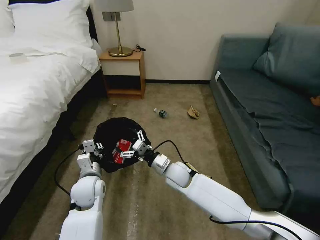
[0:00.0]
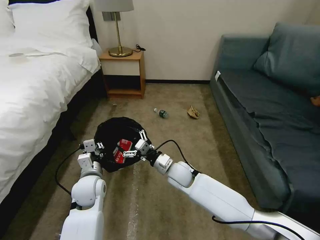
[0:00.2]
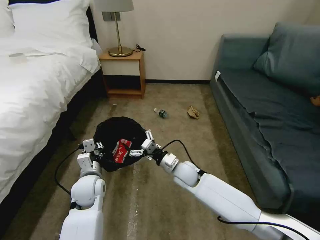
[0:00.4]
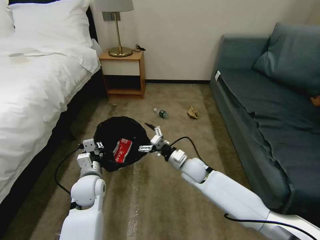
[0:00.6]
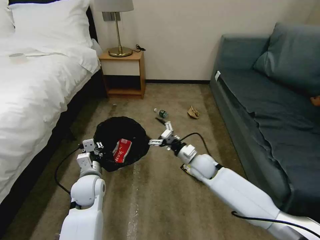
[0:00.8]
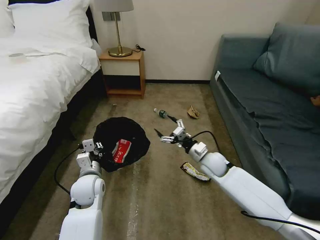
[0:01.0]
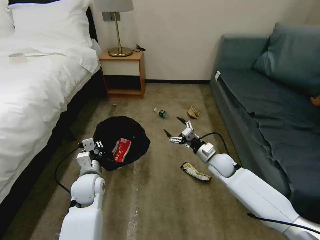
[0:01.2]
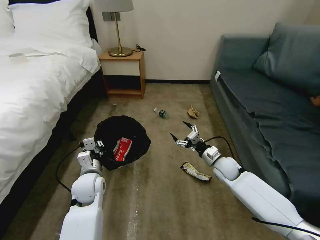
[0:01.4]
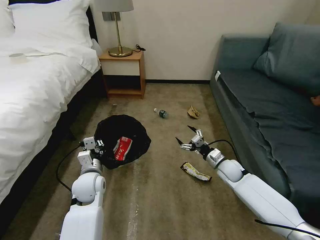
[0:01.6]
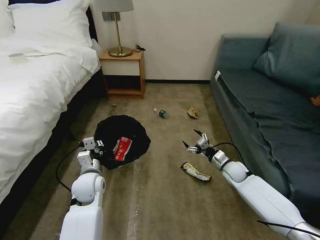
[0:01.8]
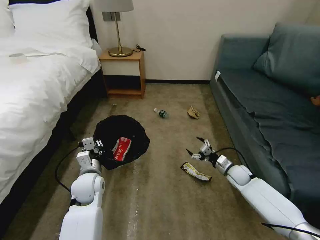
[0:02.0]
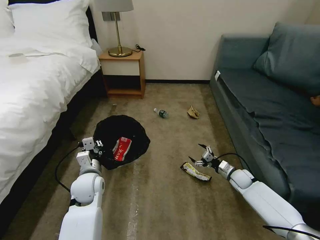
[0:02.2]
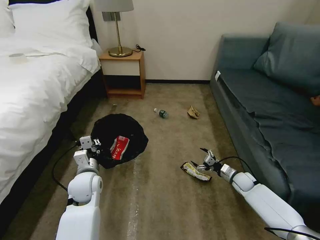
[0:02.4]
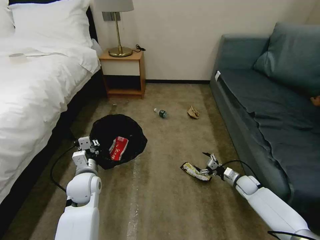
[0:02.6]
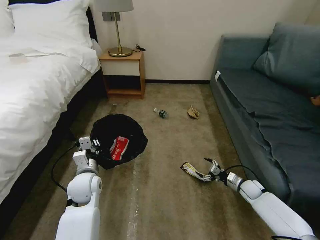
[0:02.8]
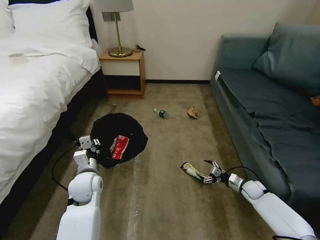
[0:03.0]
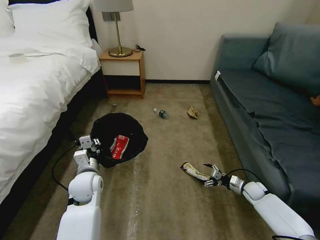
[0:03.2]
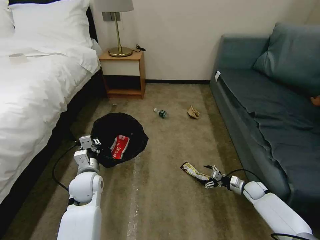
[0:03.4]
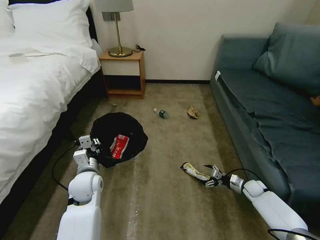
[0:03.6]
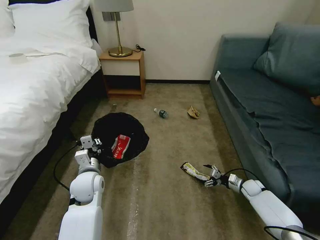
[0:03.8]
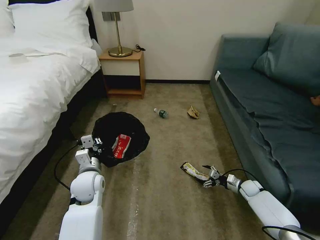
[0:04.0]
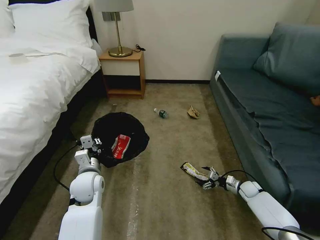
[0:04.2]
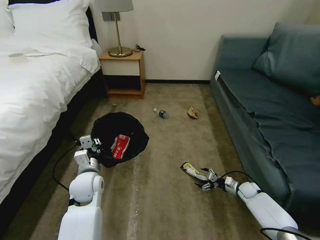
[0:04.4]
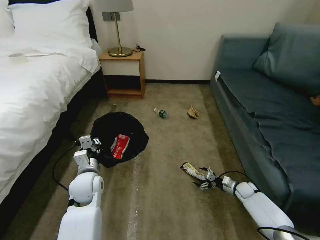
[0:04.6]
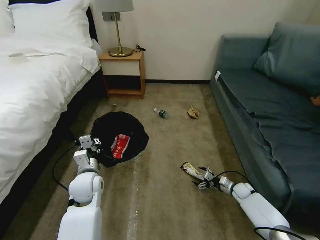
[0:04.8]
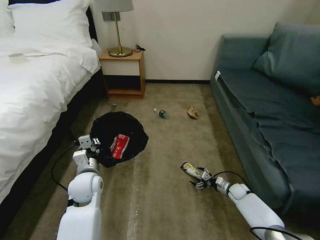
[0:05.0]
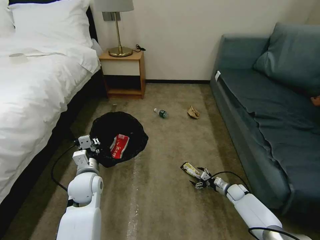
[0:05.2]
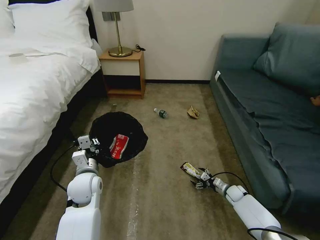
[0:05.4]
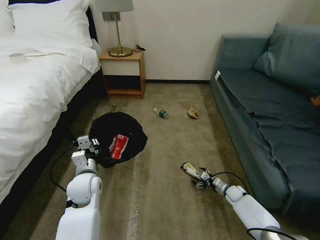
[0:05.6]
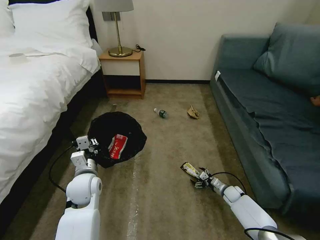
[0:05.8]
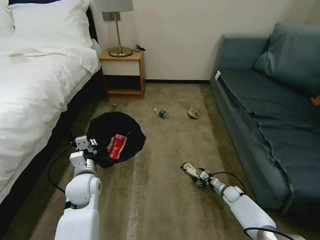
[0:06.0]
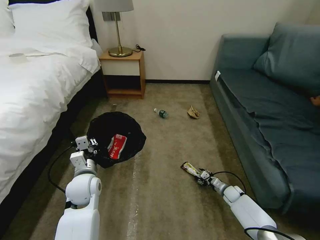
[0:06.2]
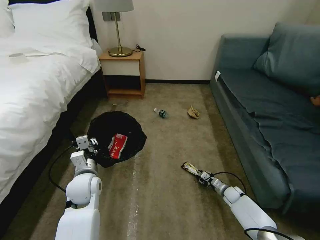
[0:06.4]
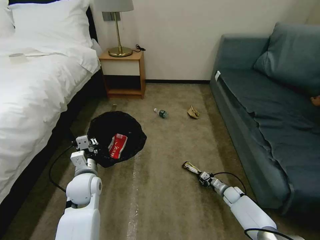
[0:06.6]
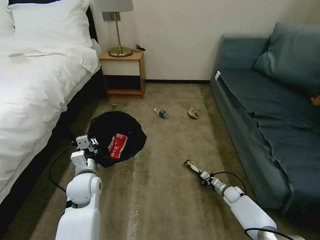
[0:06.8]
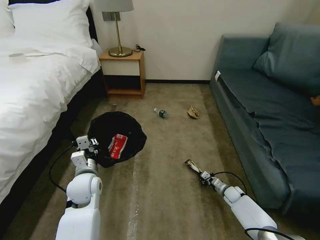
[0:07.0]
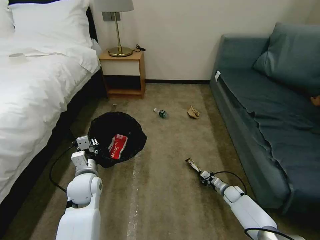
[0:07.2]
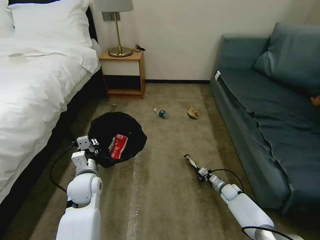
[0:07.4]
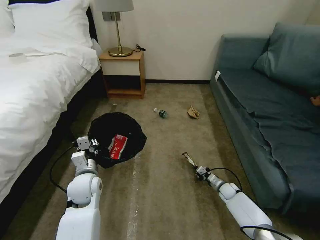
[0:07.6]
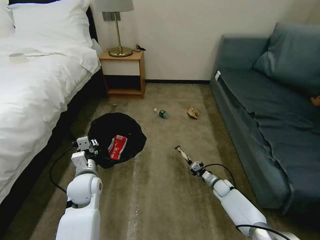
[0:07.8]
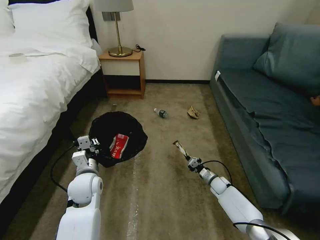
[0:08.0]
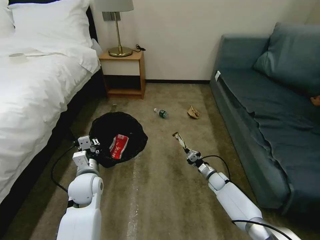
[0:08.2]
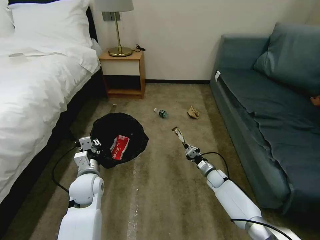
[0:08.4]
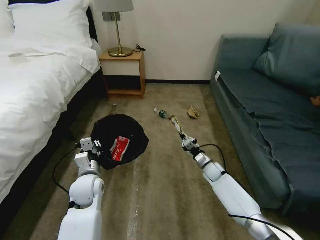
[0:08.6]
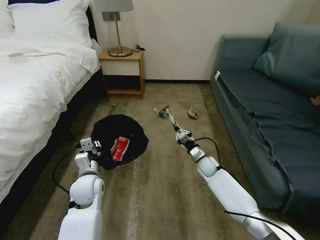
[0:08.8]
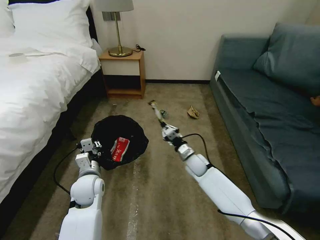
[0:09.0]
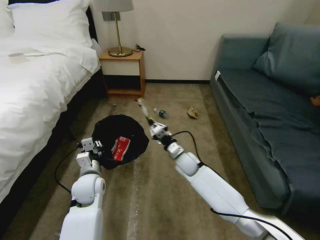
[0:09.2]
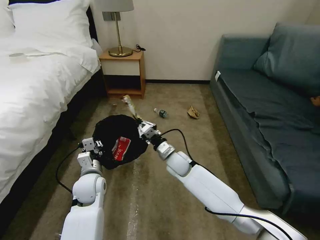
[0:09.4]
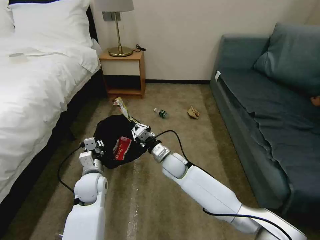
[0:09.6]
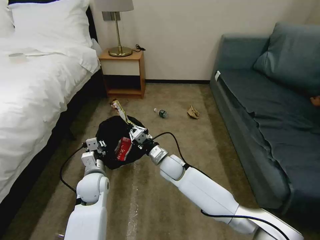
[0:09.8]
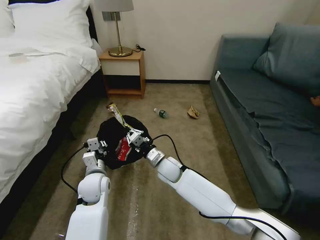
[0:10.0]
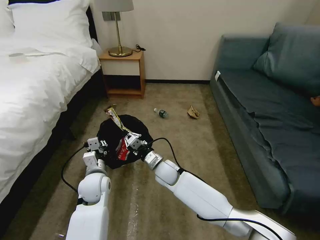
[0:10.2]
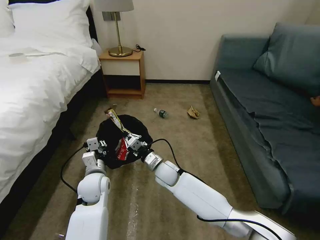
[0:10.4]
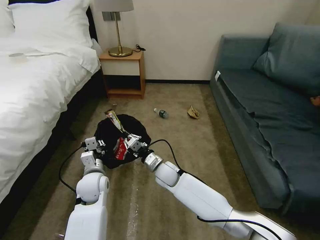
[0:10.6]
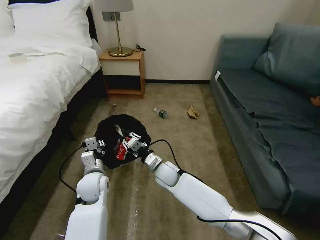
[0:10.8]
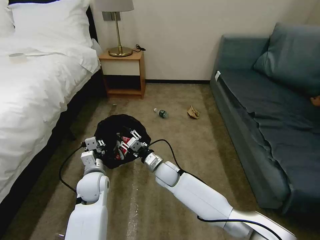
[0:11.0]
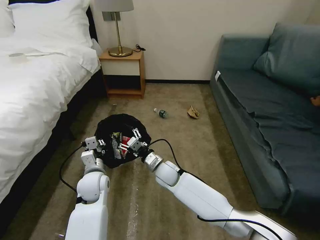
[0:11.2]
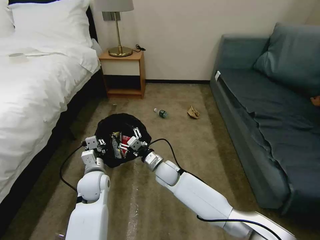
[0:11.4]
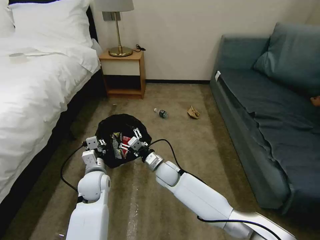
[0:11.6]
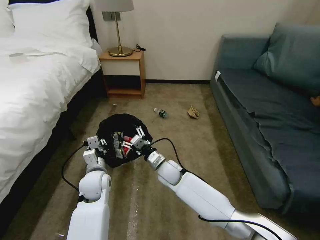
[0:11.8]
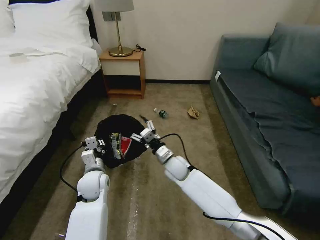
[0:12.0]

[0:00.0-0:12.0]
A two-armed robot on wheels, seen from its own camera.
Task of the whole recording: Pick up the trash bin, then pick up the garbage on the floor and place it into the trash bin.
0:00.0 to 0:01.6: The right gripper moves to the right, some 25 cm.
0:01.6 to 0:03.0: The right gripper heads to the right and downward, covering about 20 cm.
0:03.0 to 0:04.4: There are only small adjustments of the grippers.
0:04.4 to 0:06.0: The right gripper heads to the left, covering some 5 cm.
0:06.0 to 0:07.6: The right gripper closes.
0:07.6 to 0:09.0: The right gripper is displaced to the left and upward by about 25 cm.
0:09.0 to 0:10.4: The right gripper shifts approximately 15 cm to the left.
0:10.4 to 0:12.0: The right gripper opens.

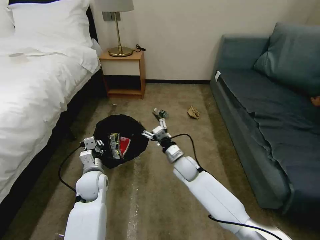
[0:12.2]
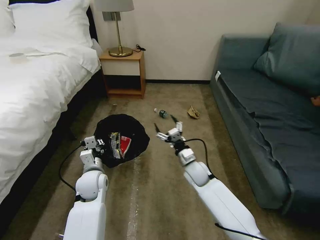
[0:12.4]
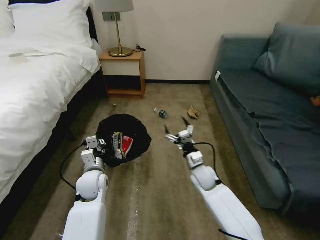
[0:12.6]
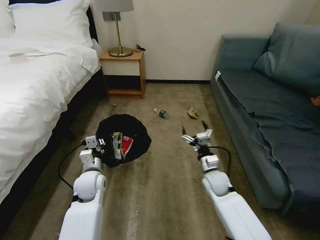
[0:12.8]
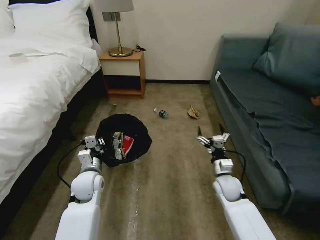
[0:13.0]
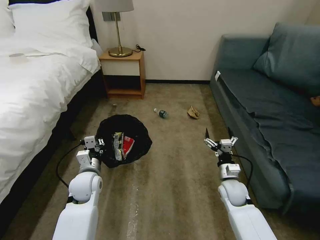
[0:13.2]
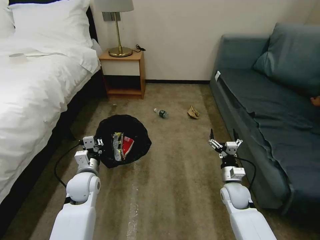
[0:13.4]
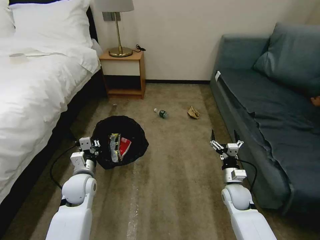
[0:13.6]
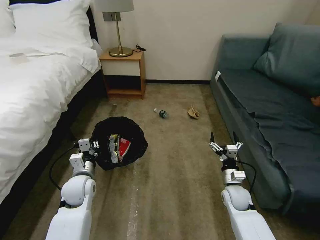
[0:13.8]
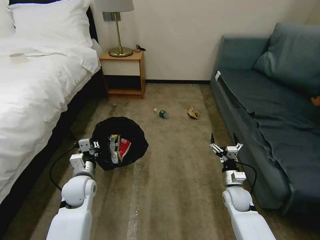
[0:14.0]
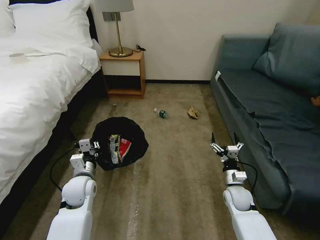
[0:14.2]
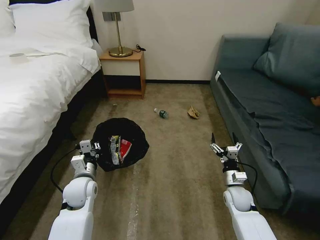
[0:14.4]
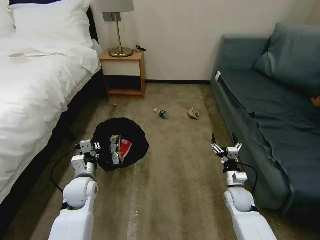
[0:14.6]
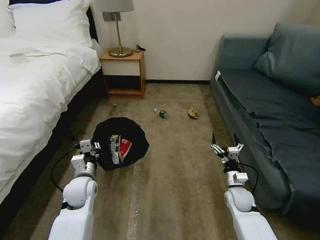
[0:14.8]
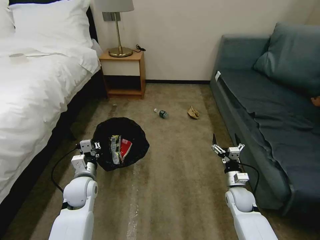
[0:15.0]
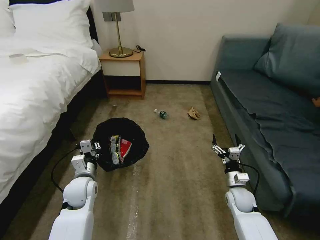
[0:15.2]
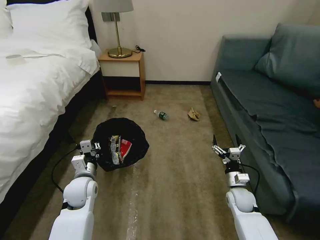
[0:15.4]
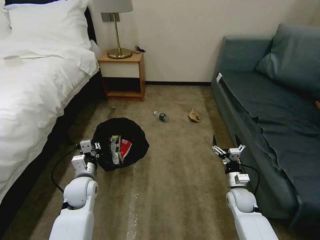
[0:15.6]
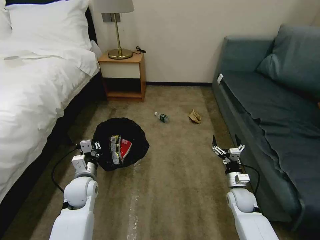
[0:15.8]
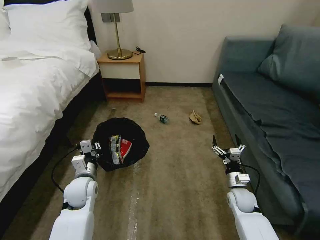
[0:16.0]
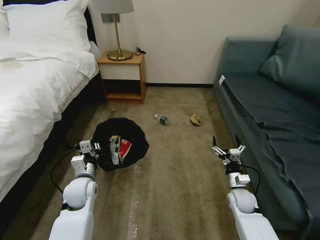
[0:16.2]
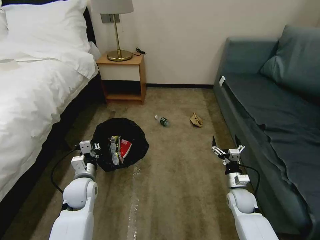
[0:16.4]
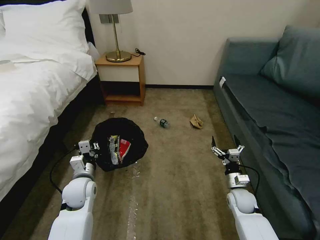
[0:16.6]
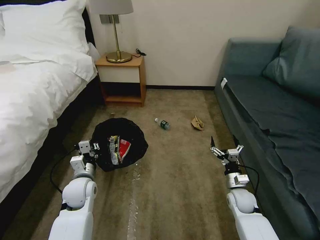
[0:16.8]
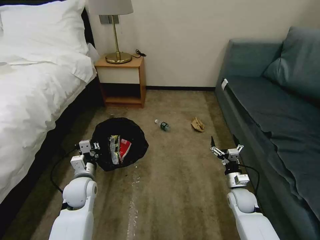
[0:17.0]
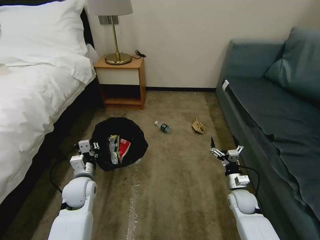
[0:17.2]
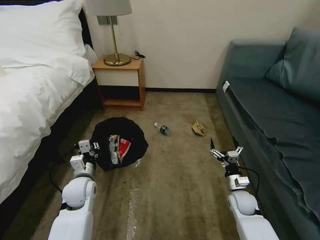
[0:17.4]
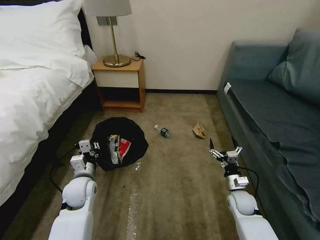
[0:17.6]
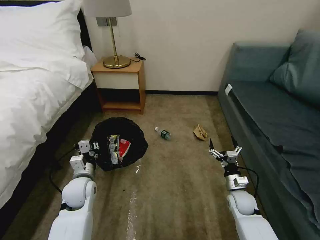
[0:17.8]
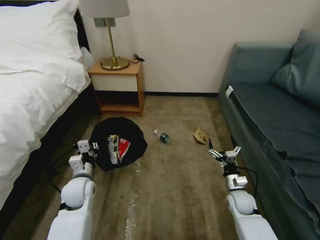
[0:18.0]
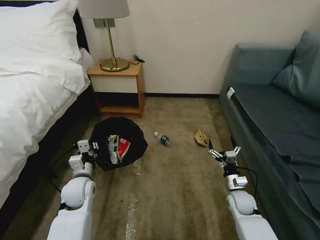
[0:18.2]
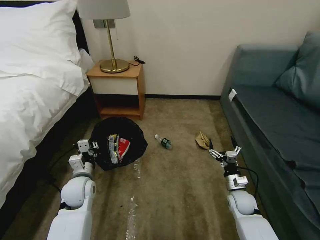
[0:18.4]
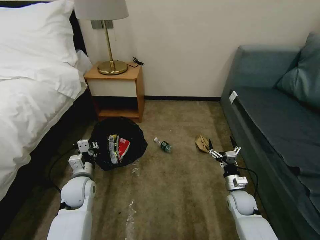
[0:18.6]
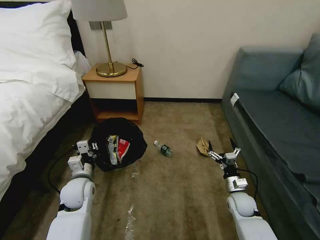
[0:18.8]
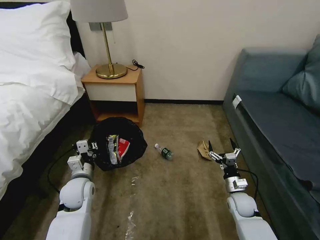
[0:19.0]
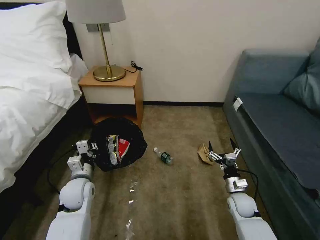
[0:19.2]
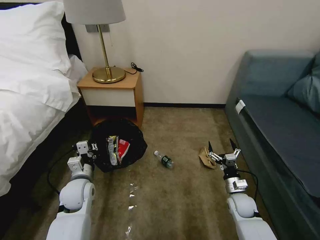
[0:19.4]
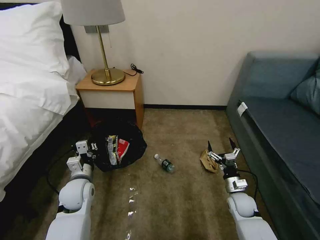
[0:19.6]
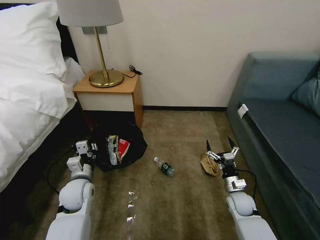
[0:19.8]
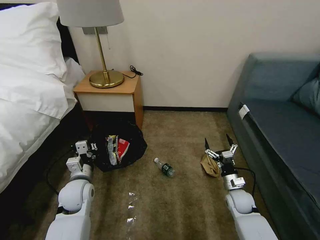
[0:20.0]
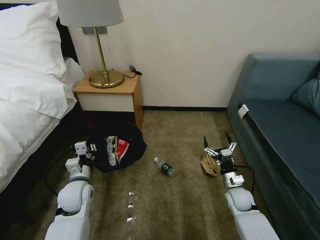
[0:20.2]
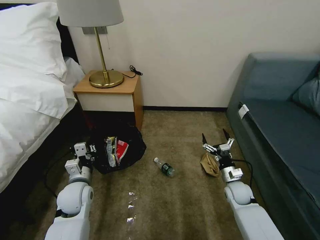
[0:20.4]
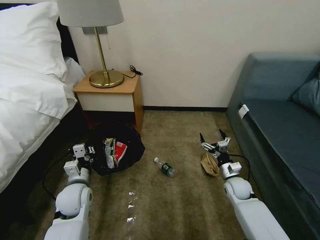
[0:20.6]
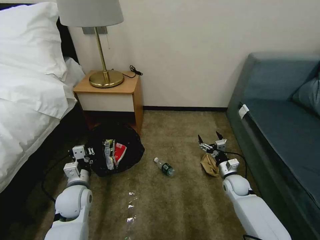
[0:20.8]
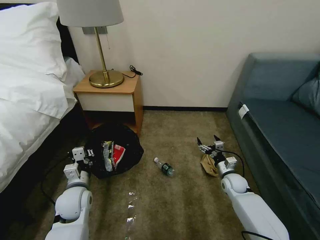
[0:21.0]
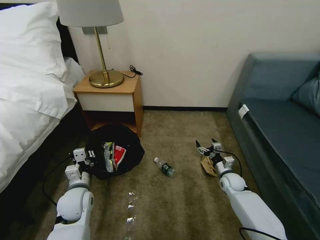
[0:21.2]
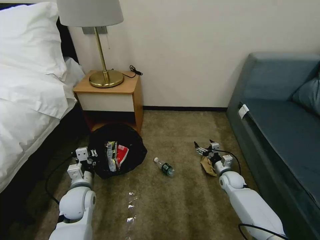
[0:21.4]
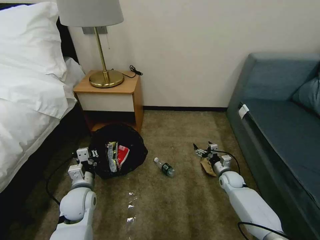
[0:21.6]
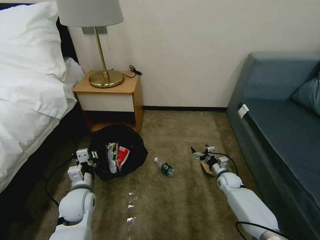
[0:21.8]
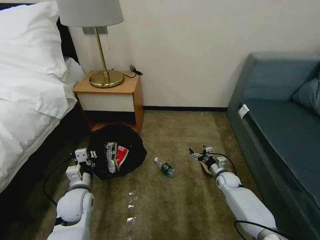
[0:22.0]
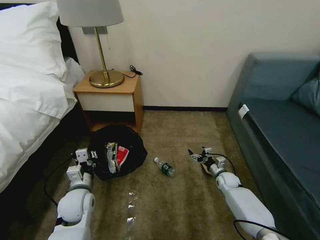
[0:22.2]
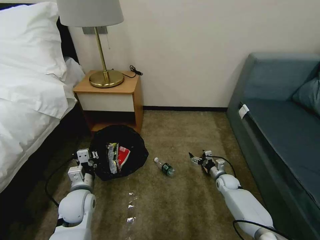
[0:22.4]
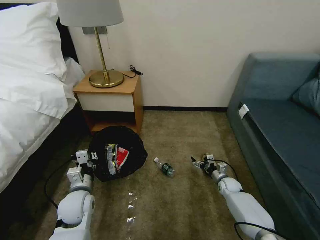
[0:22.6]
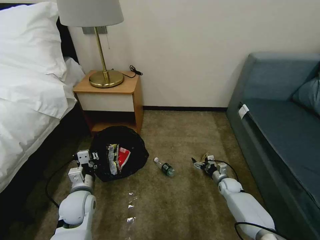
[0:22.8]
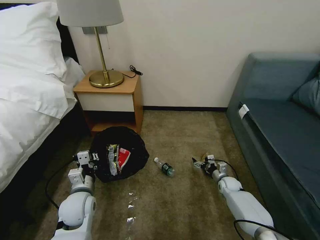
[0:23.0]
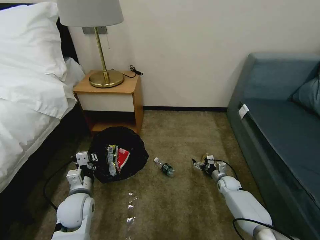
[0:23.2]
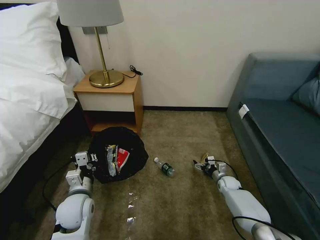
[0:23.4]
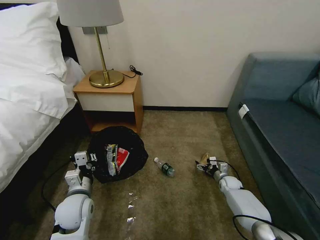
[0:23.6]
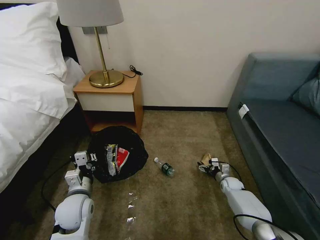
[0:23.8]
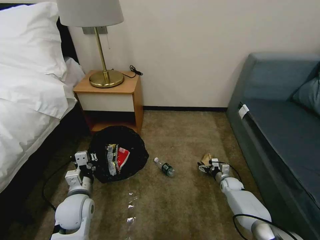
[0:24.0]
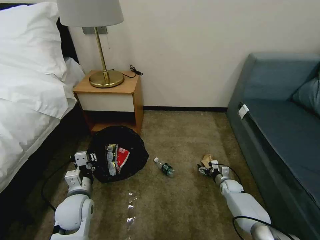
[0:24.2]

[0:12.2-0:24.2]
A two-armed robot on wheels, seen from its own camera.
Task of the whole recording: Pick up the trash bin, then pick up the garbage on the floor and place it into the trash bin.
0:12.2 to 0:13.8: The right gripper moves to the right and backward, approximately 20 cm.
0:13.8 to 0:15.2: There are only small adjustments of the grippers.
0:15.2 to 0:16.6: Neither gripper changes place.
0:16.6 to 0:18.2: Both grippers stay about where they are.
0:19.8 to 0:21.2: The right gripper moves forward, approximately 10 cm.
0:21.2 to 0:22.6: The right gripper is displaced downward by roughly 5 cm.
0:22.6 to 0:24.2: The grippers make only small movements.
